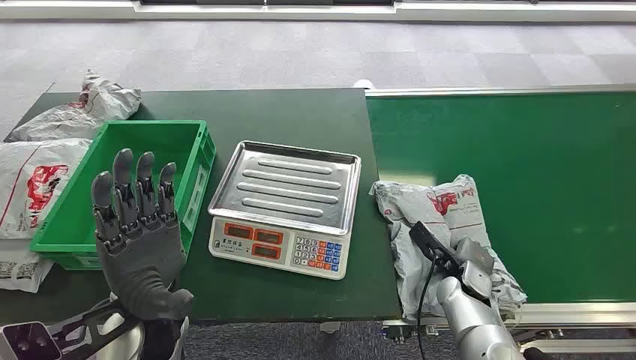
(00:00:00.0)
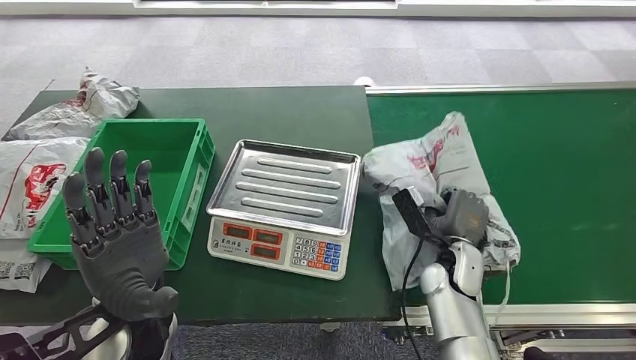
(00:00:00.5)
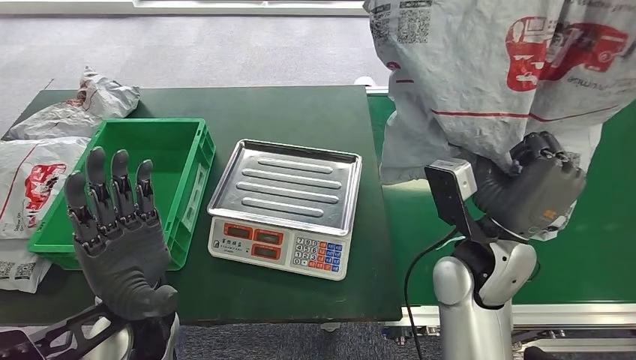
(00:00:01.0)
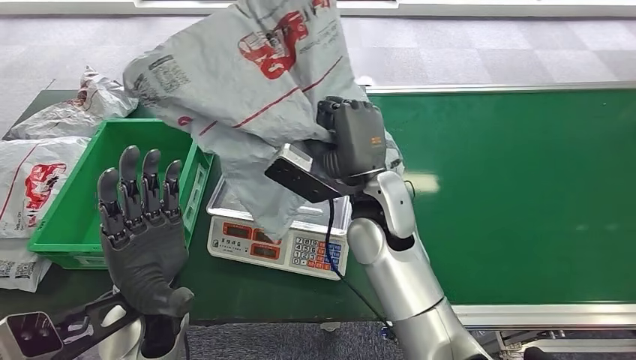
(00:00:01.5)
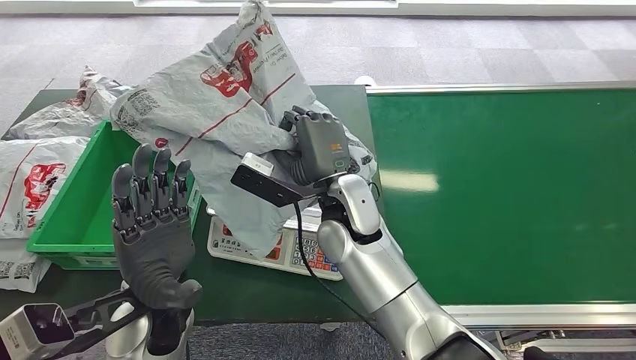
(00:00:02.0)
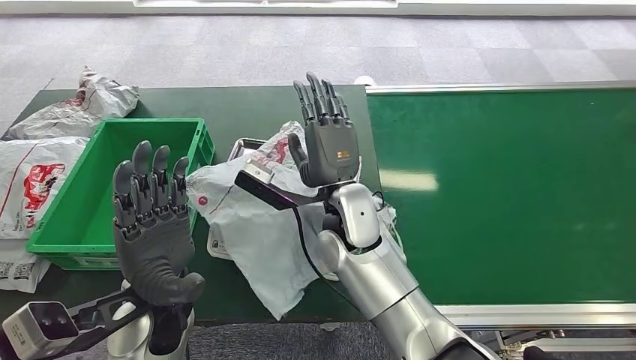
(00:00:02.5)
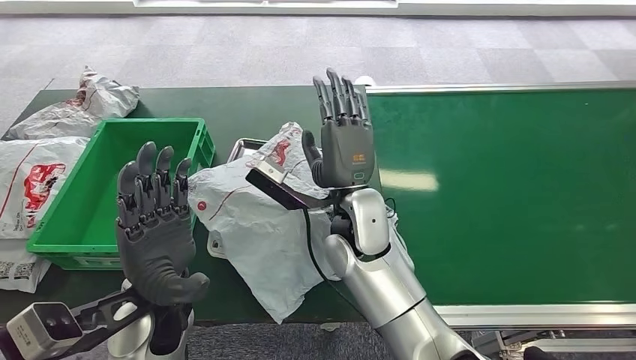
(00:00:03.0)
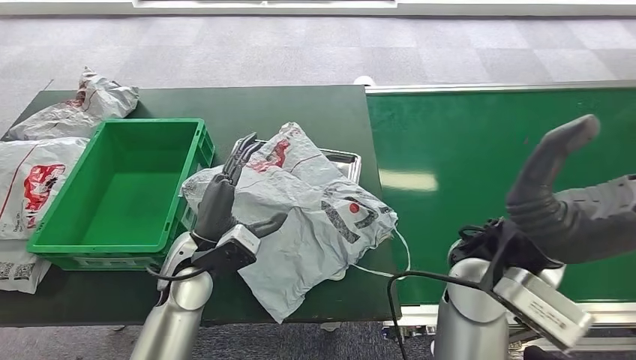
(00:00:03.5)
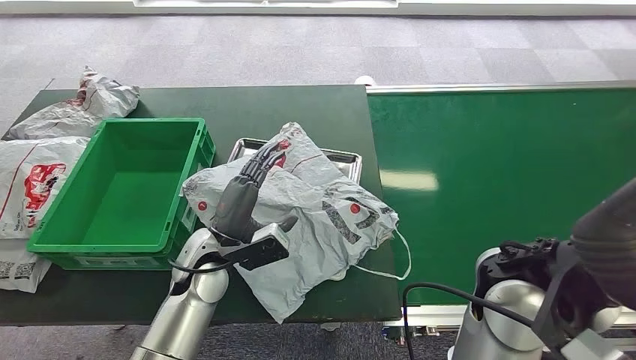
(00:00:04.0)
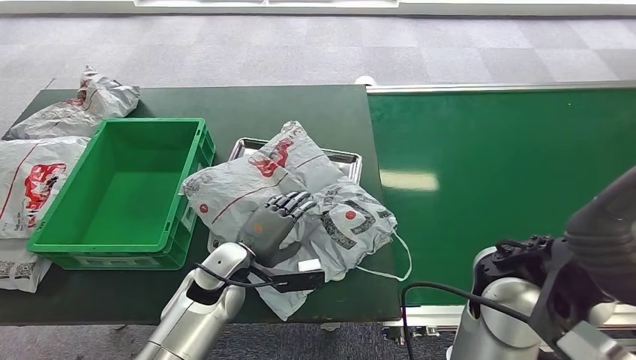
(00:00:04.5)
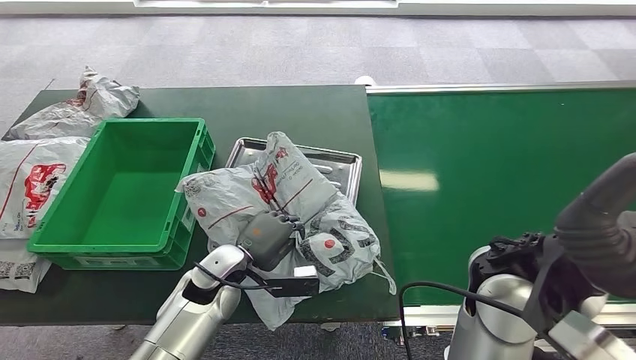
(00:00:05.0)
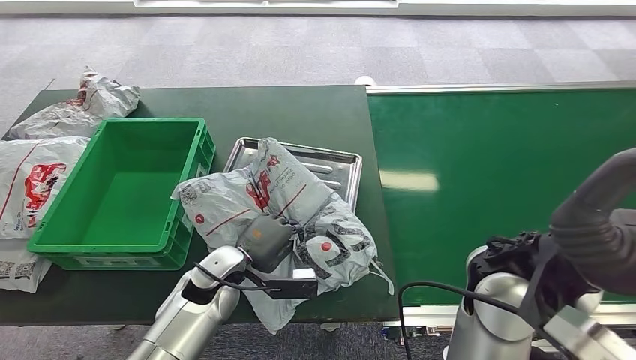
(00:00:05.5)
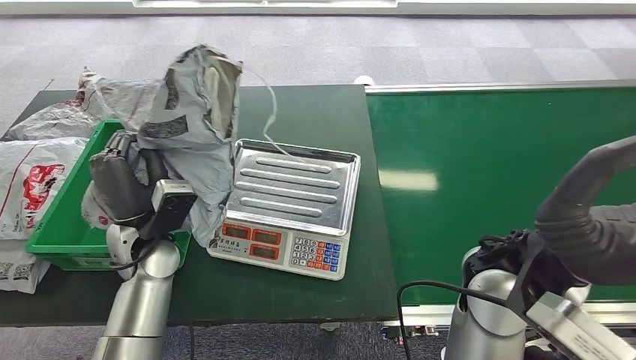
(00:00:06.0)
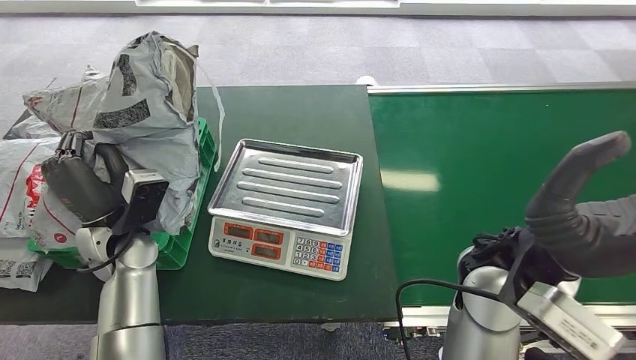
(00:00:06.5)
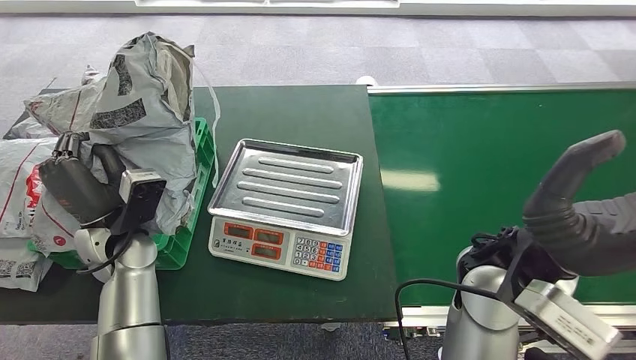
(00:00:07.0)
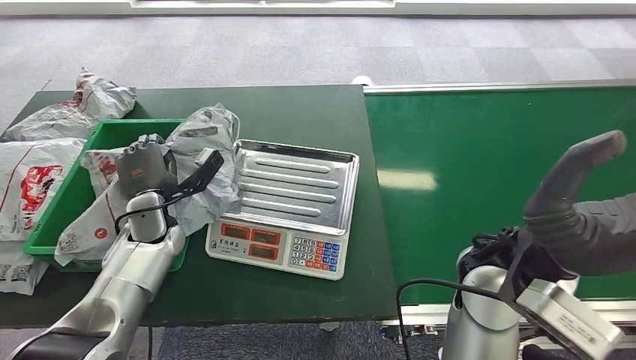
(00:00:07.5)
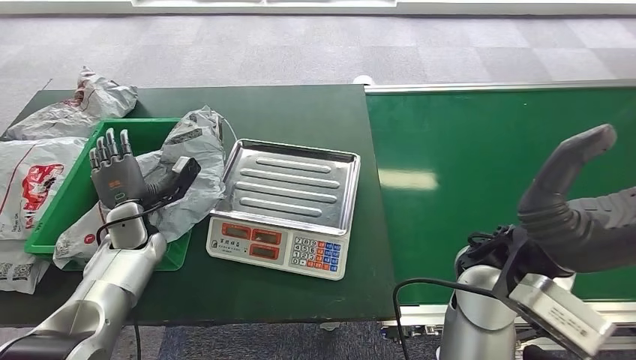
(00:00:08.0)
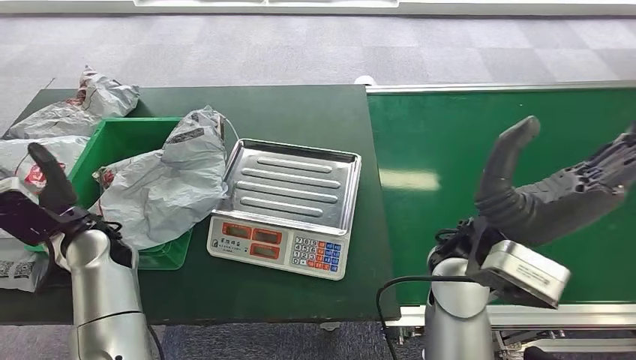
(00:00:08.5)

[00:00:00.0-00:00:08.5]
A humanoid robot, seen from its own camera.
Step, 00:00:00.0 to 00:00:01.0: Pick up the package from the conveyor belt.
Step, 00:00:01.5 to 00:00:03.0: Place the package onto the inbound machine.
Step, 00:00:04.0 to 00:00:06.0: Pick up the package from the inbound machine.
Step, 00:00:06.5 to 00:00:08.5: Place the package into the parcel locker.

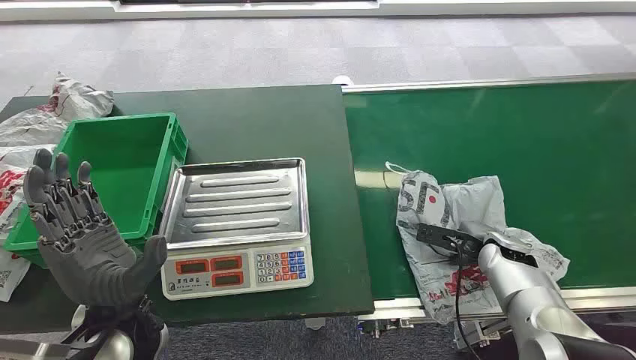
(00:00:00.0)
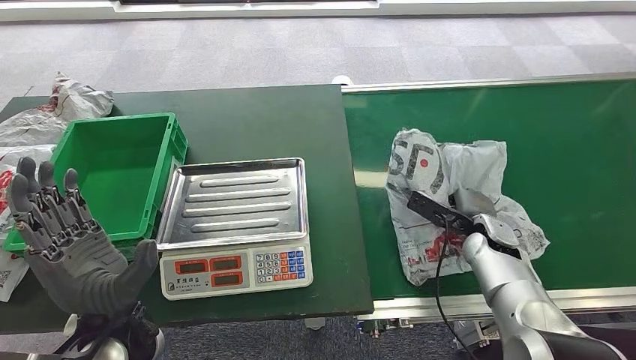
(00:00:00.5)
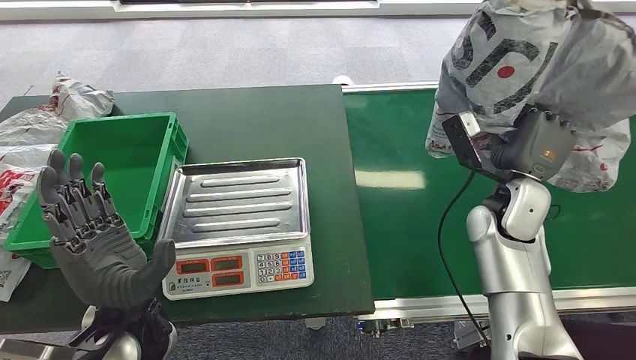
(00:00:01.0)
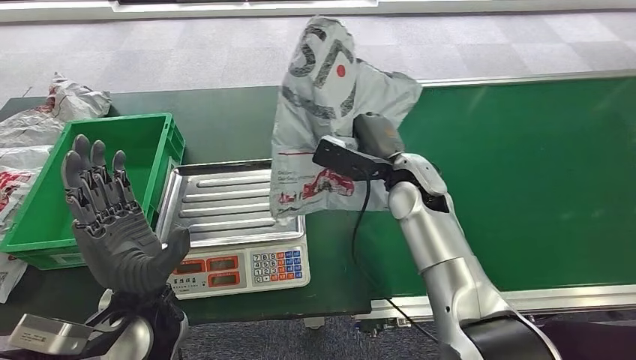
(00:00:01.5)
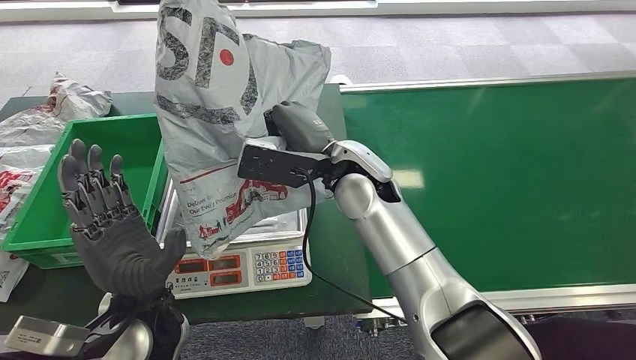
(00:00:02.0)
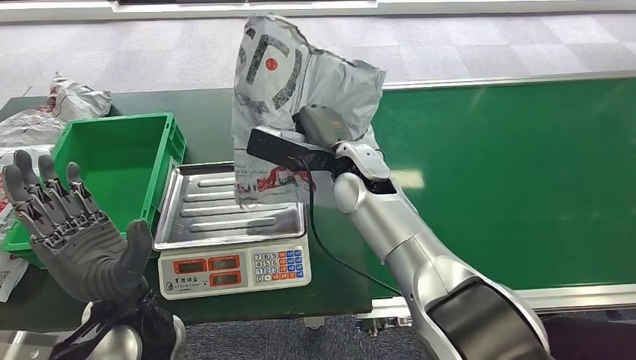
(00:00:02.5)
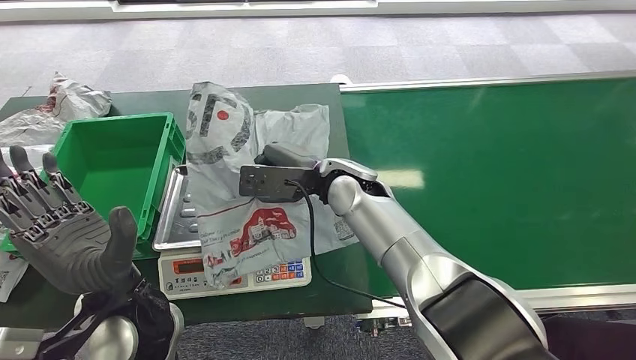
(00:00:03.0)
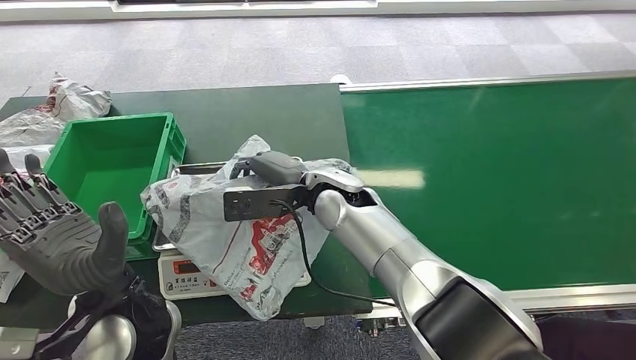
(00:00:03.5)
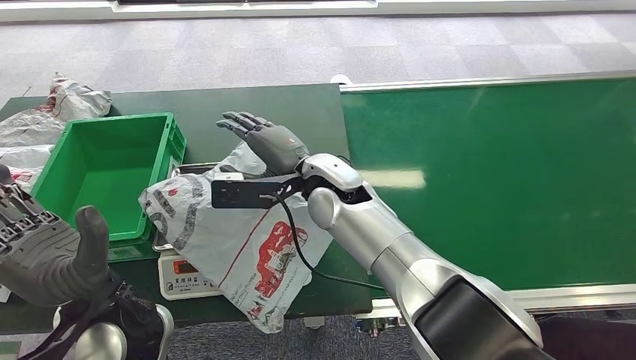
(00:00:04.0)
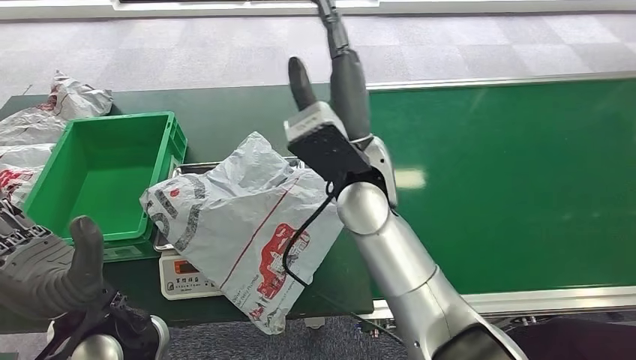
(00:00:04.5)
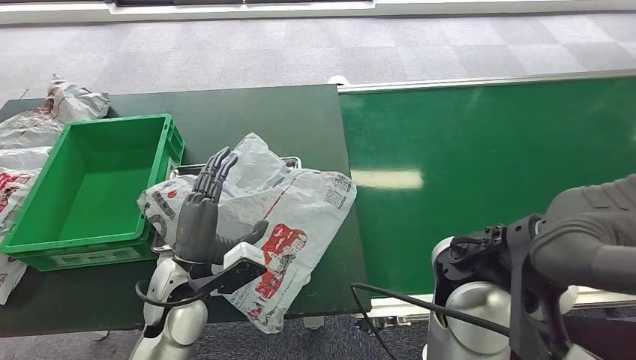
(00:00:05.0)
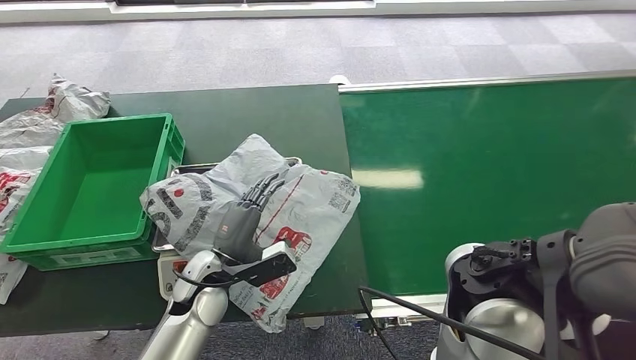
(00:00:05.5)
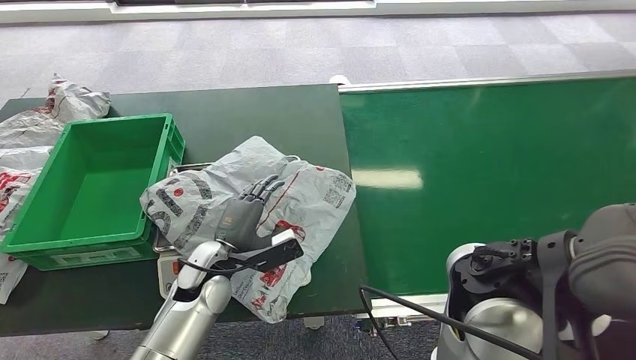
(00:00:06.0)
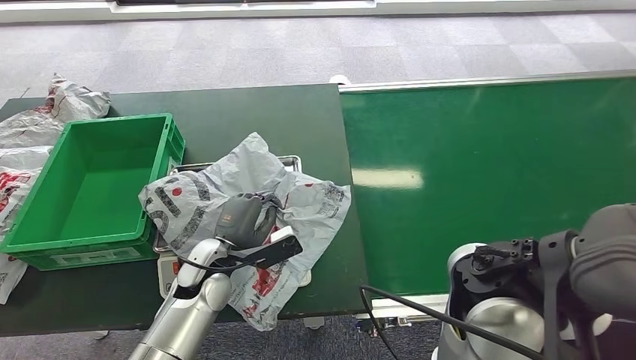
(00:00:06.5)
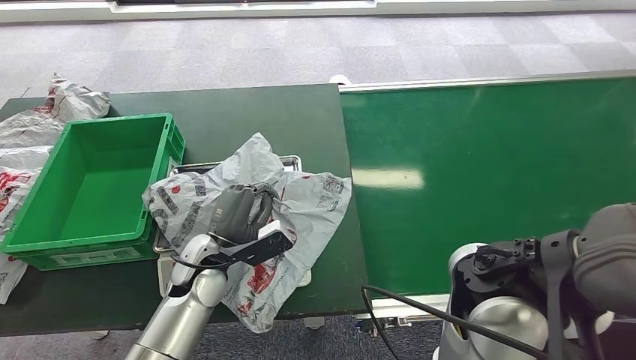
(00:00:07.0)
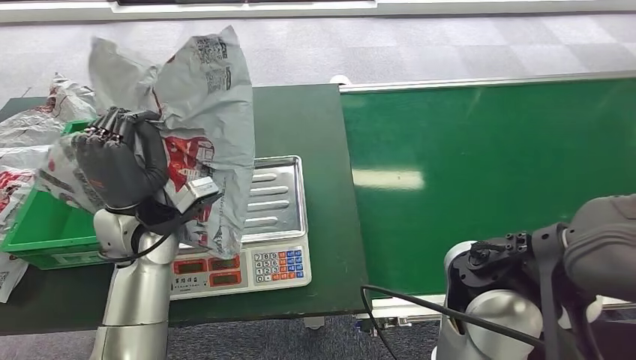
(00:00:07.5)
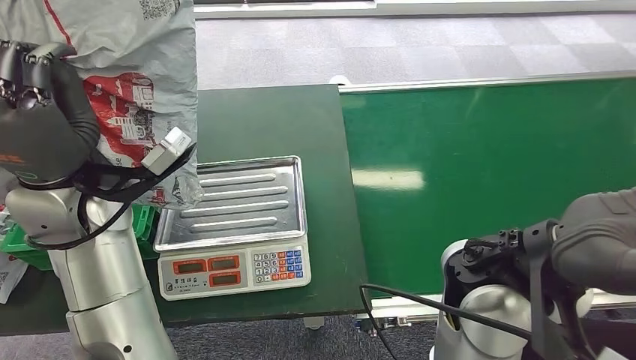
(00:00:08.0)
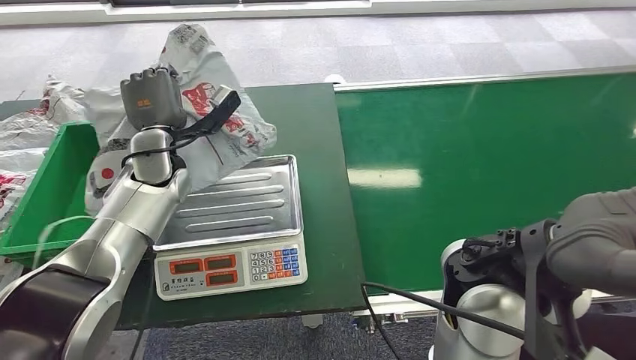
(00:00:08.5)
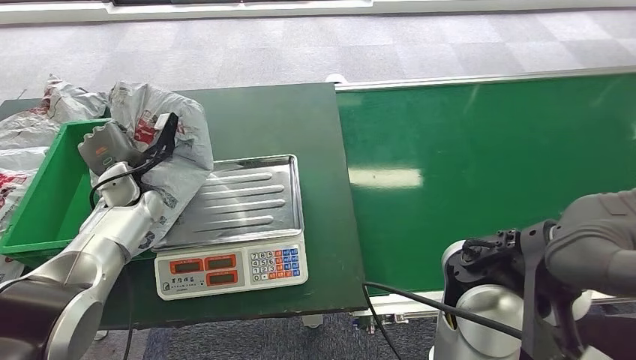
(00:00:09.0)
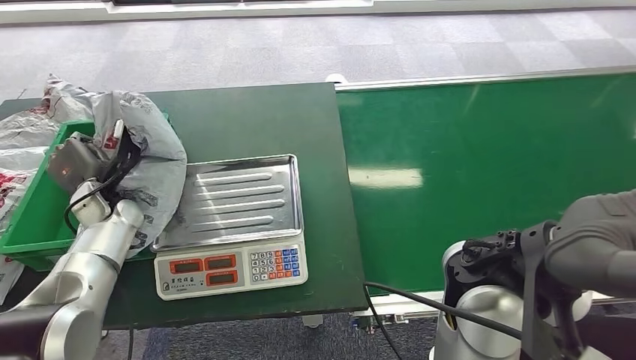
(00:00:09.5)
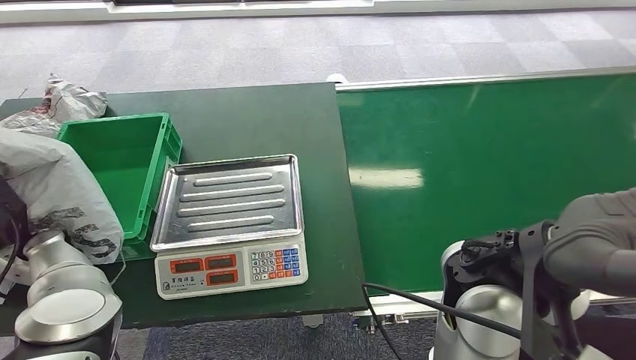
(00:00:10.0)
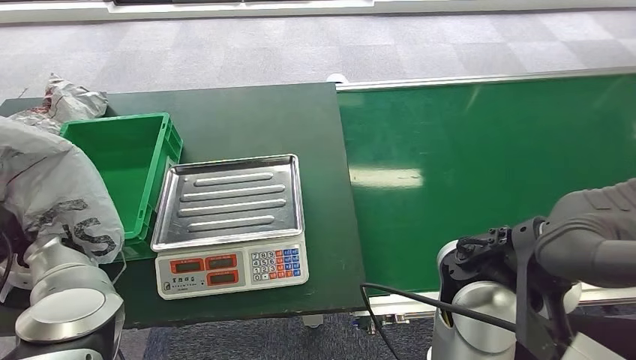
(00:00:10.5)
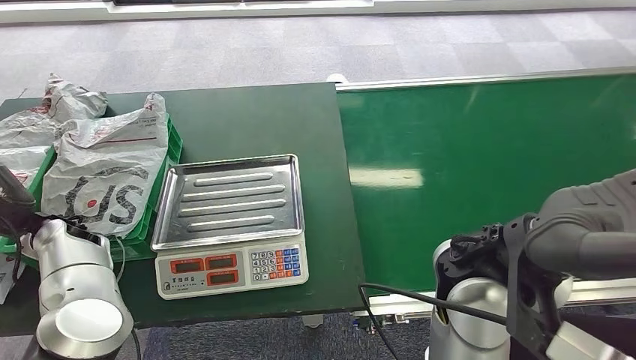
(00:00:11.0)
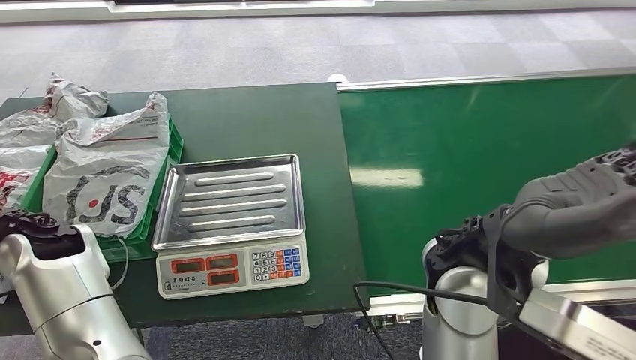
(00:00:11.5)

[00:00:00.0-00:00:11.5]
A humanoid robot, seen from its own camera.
Step, 00:00:00.0 to 00:00:01.5: Pick up the package from the conveyor belt.
Step, 00:00:02.0 to 00:00:04.5: Place the package onto the inbound machine.
Step, 00:00:05.0 to 00:00:08.0: Pick up the package from the inbound machine.
Step, 00:00:08.5 to 00:00:11.5: Place the package into the parcel locker.
